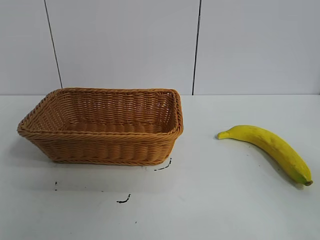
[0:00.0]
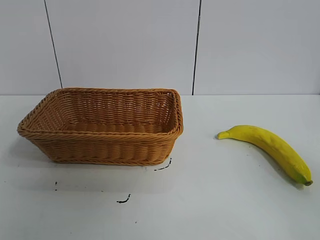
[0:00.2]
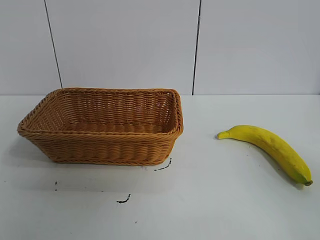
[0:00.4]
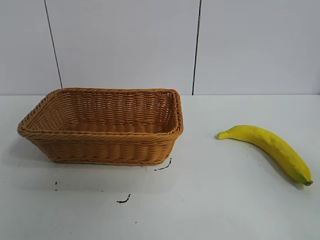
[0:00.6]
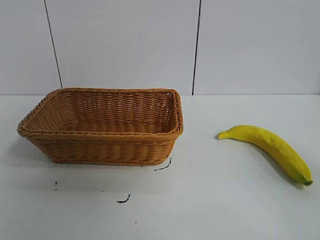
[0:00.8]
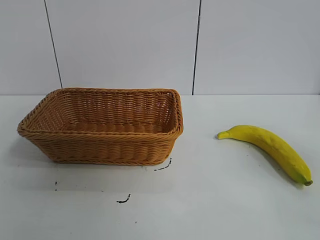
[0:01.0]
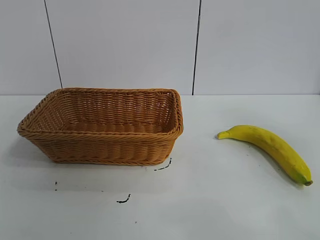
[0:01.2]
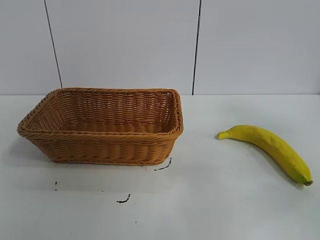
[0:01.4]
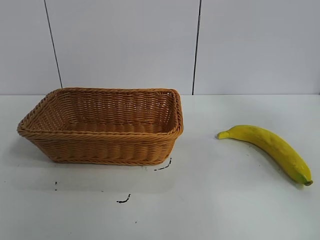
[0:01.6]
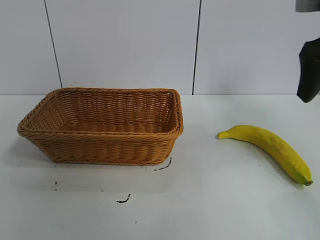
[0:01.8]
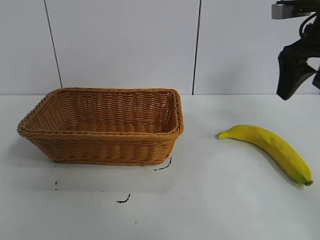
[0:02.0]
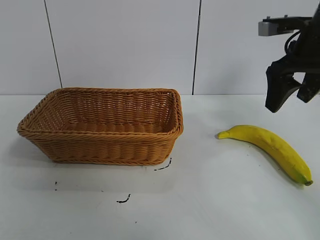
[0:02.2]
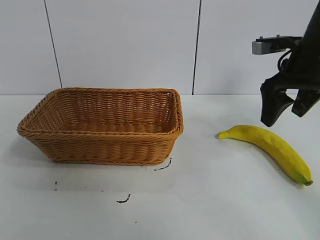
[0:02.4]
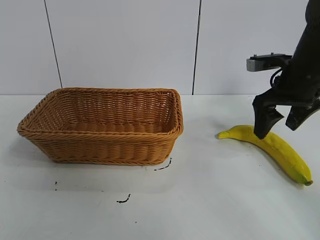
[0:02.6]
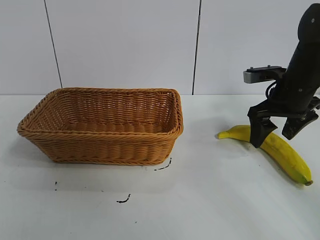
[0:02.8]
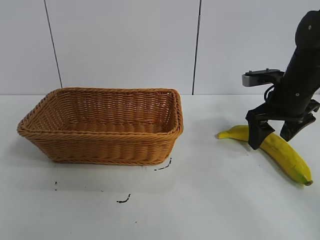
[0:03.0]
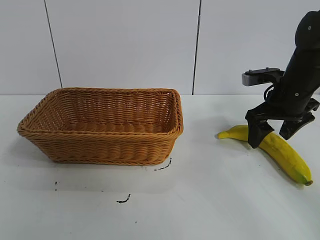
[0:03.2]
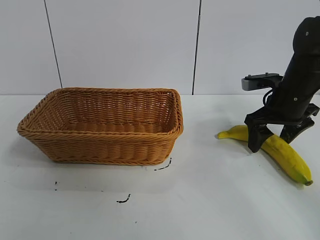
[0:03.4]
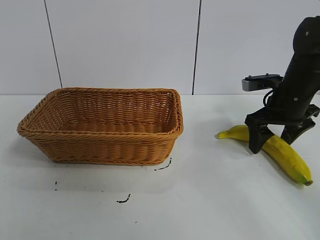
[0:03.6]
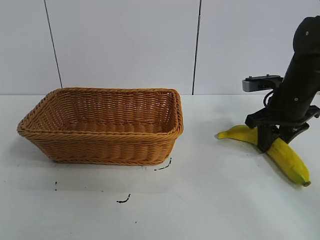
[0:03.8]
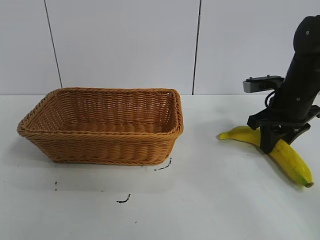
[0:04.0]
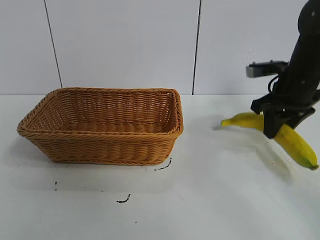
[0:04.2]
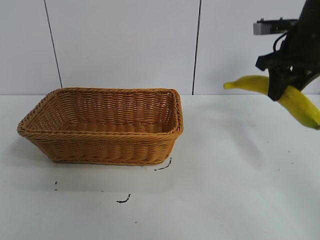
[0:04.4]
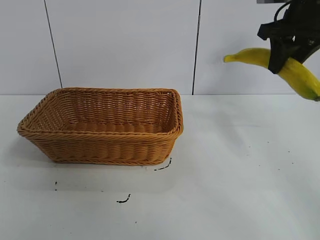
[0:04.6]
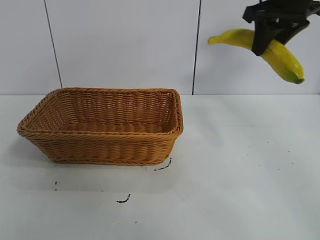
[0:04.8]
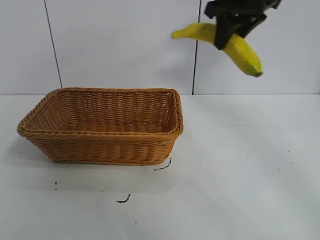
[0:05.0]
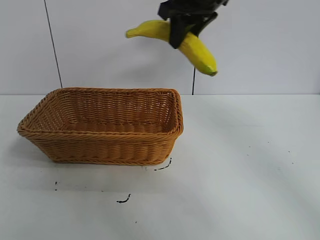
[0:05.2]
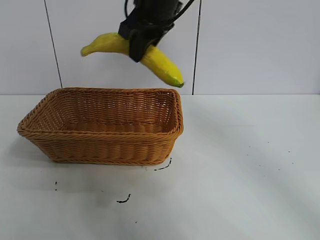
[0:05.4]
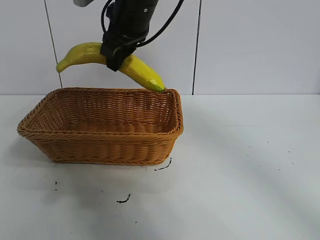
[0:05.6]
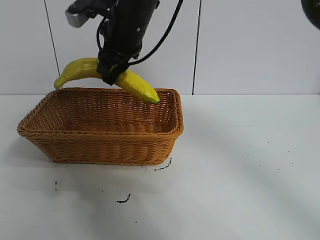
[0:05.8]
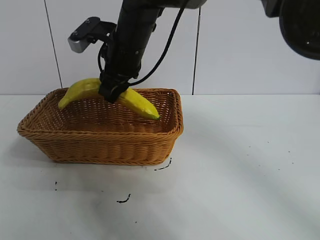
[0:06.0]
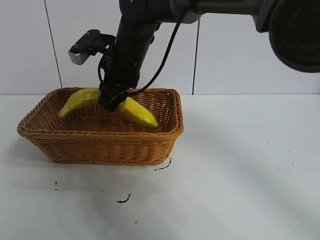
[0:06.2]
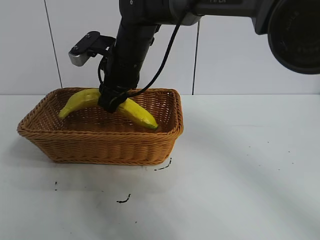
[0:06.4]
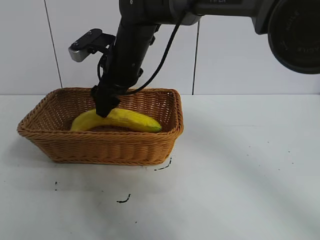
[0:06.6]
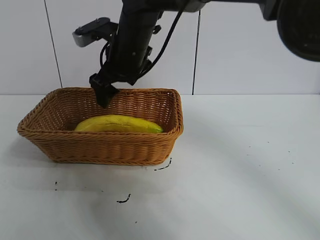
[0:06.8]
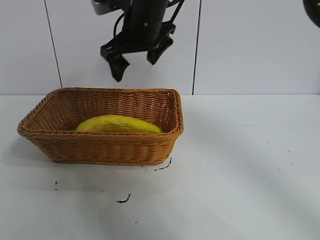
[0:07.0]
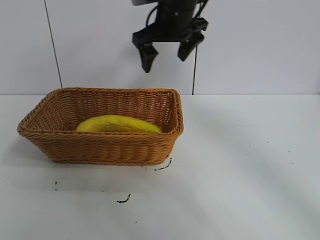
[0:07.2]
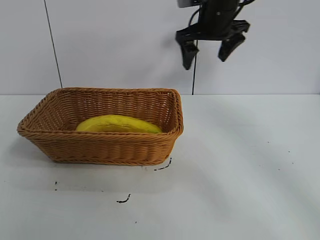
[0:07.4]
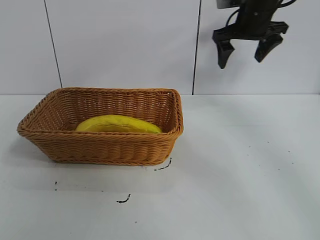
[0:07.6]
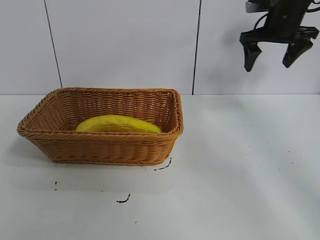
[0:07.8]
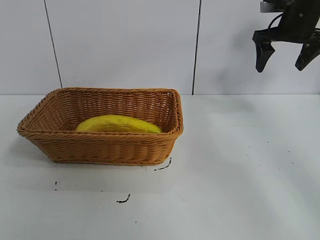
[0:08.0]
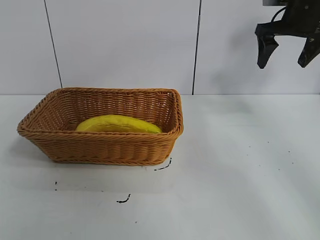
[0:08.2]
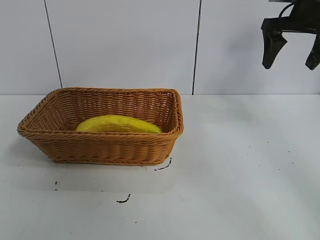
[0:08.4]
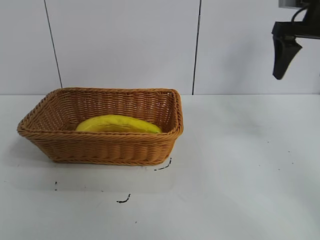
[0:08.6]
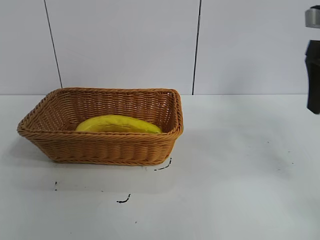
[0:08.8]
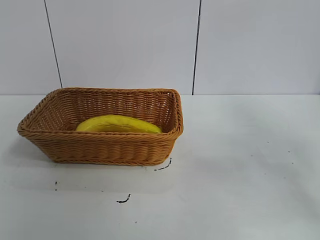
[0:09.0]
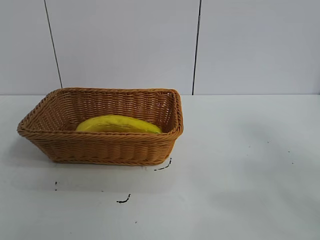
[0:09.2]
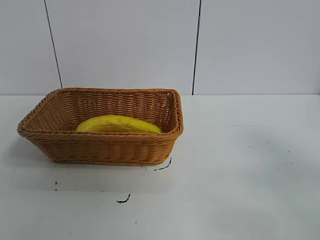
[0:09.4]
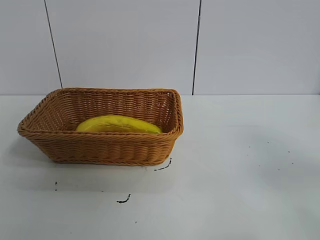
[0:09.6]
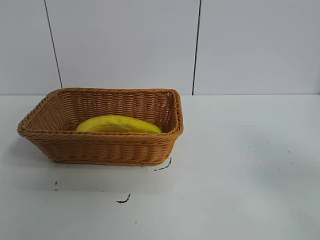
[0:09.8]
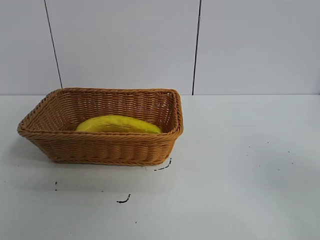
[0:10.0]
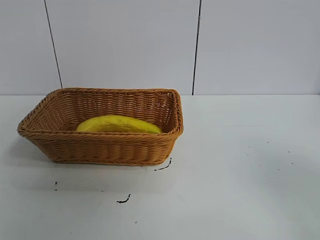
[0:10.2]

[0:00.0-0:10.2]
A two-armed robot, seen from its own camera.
Task of the whole recording: pick up the banana and put it into the basket.
Step, 0:00.8 to 0:03.8: Grasp the banana with right gripper.
Step, 0:04.2 to 0:06.6: Place the banana in the basket with right gripper.

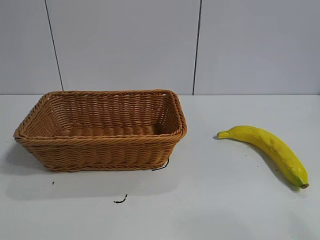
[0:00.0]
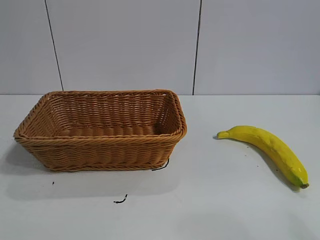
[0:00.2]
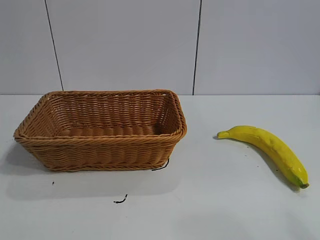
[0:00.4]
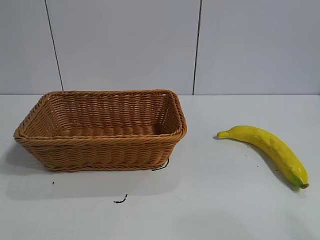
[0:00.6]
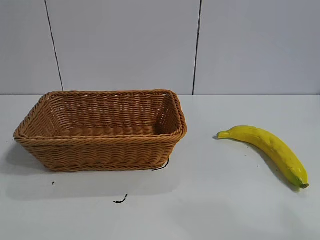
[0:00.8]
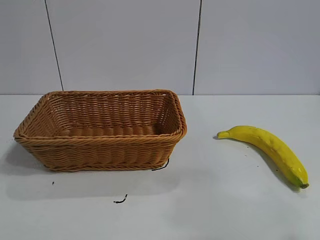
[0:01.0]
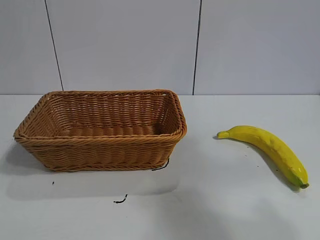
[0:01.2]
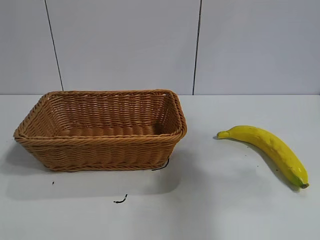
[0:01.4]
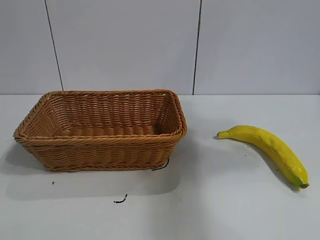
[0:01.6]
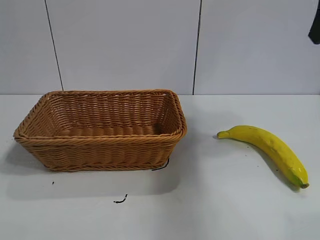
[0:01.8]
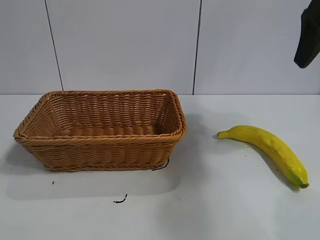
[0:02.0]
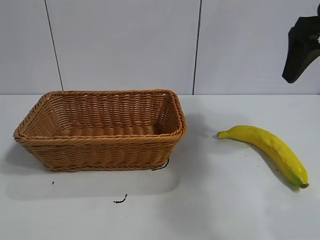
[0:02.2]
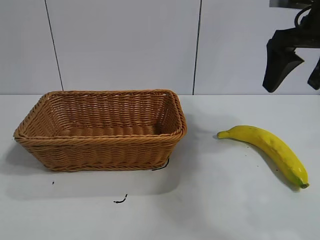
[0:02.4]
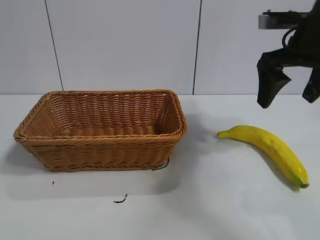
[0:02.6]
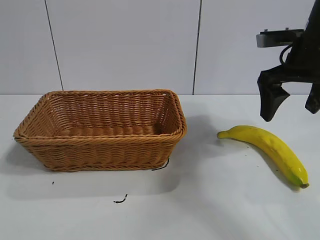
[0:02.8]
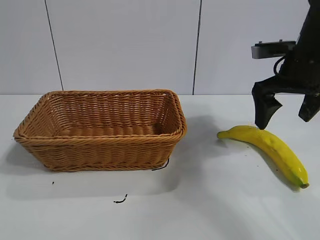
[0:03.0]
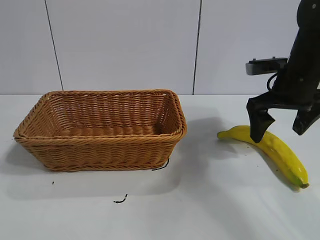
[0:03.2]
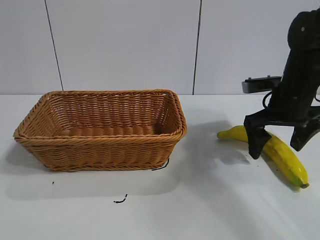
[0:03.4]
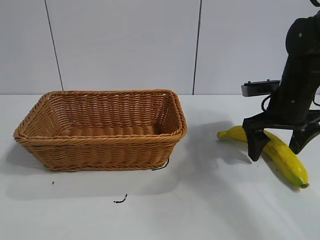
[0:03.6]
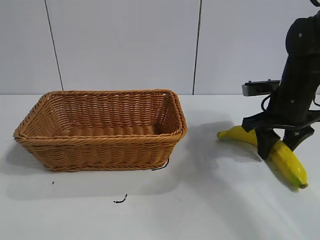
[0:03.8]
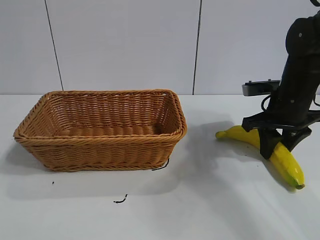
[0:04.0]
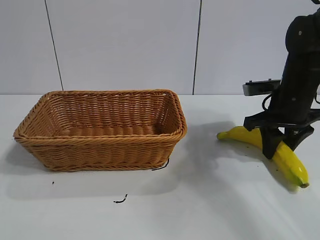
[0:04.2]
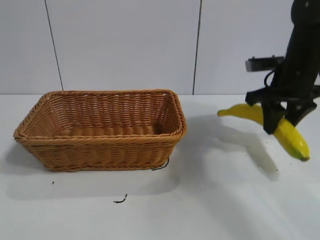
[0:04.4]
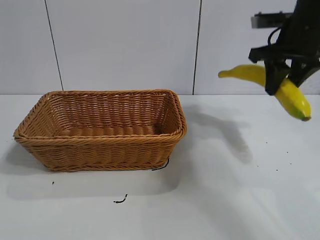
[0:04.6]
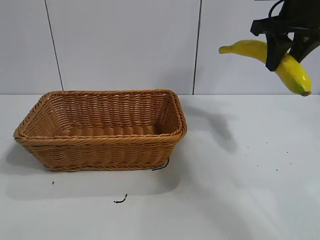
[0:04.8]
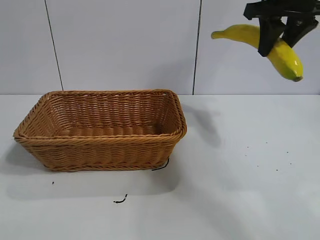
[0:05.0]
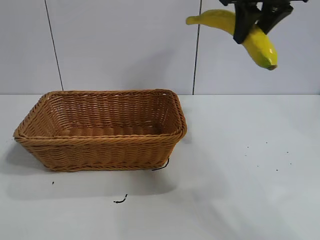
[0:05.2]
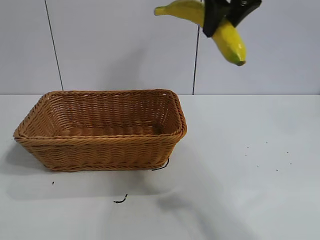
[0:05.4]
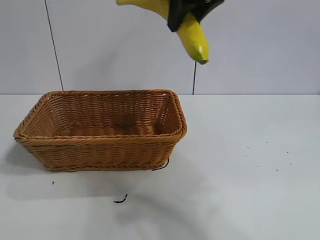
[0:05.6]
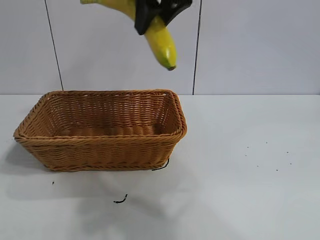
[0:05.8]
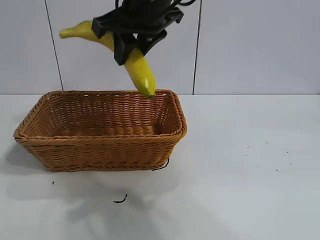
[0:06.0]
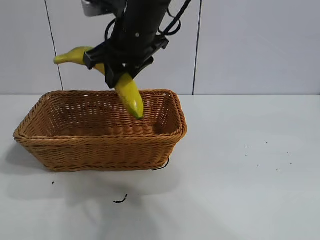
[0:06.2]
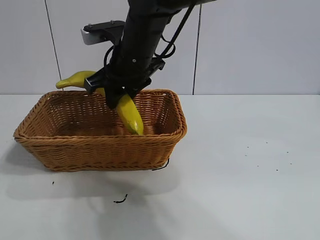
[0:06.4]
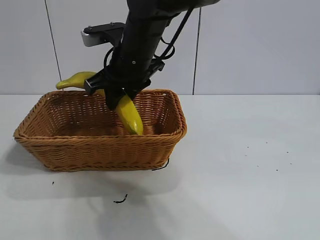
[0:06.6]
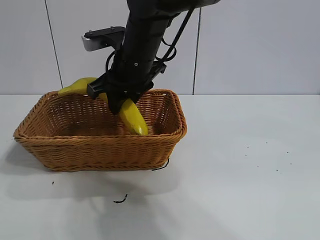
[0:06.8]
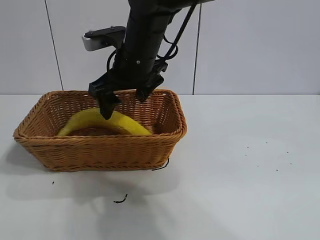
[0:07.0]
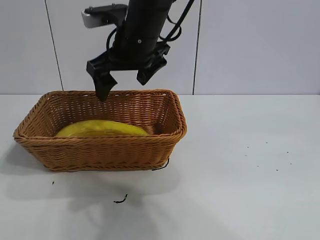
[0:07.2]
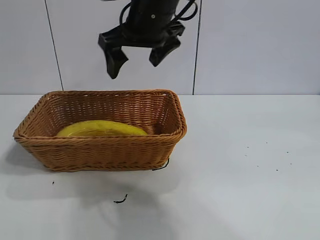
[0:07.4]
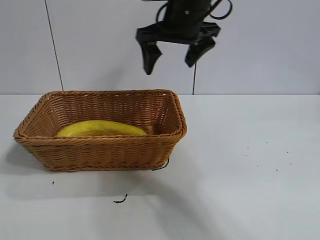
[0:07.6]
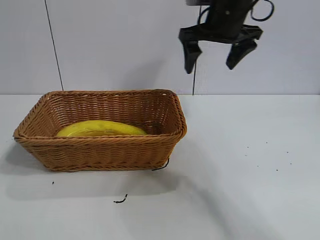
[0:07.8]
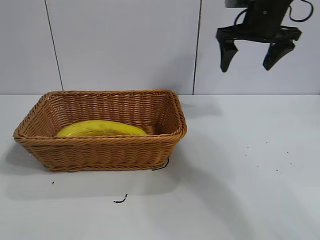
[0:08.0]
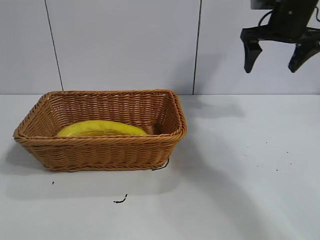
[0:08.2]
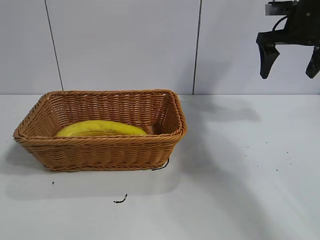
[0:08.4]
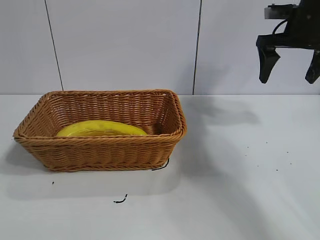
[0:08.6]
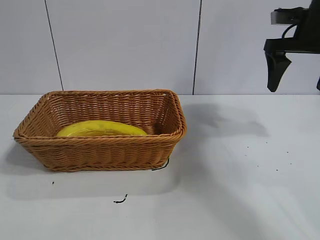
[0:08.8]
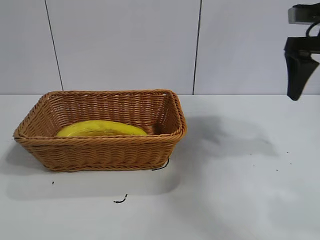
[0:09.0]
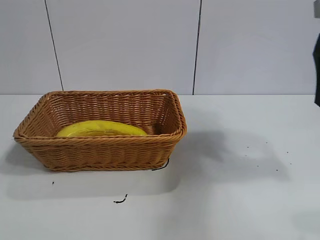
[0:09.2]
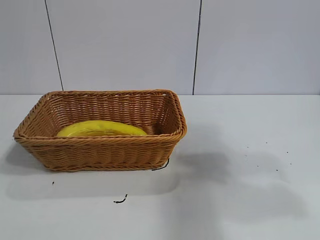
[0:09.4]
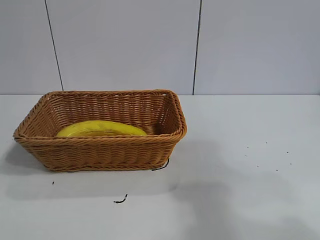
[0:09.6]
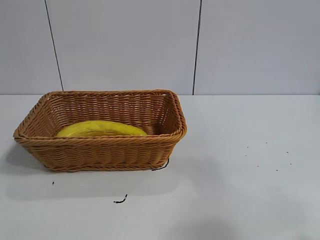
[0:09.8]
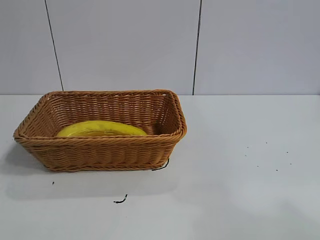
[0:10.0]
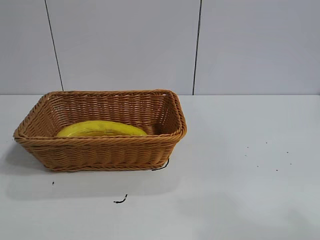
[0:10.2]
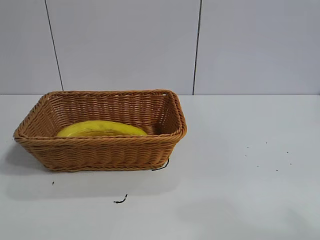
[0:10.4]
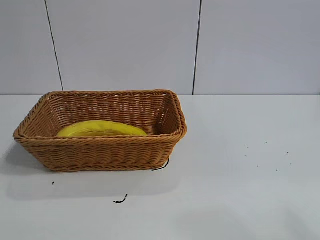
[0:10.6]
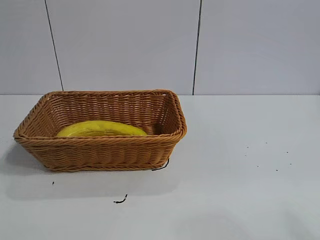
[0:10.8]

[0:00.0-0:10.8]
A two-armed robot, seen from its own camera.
Task of the whole recording: pick up the banana and put it into the basket.
Step, 0:01.8 to 0:04.2: Grasp the banana with right gripper.
Step, 0:04.4 to 0:07.0: Place the banana in the basket with right gripper.
